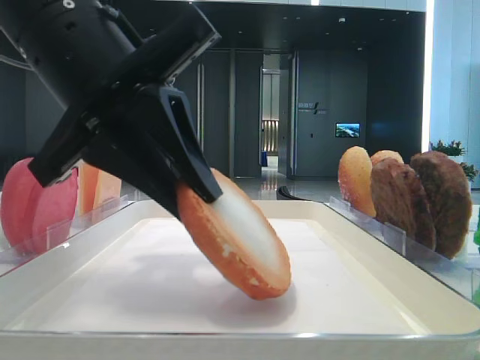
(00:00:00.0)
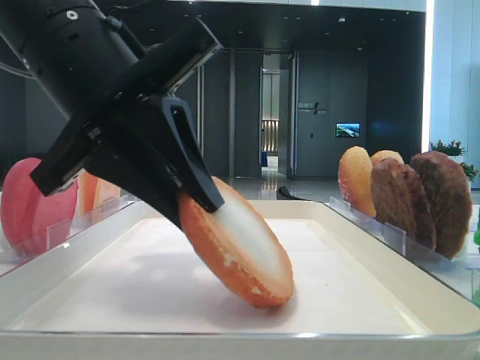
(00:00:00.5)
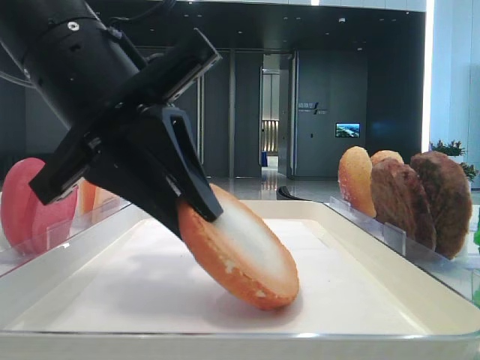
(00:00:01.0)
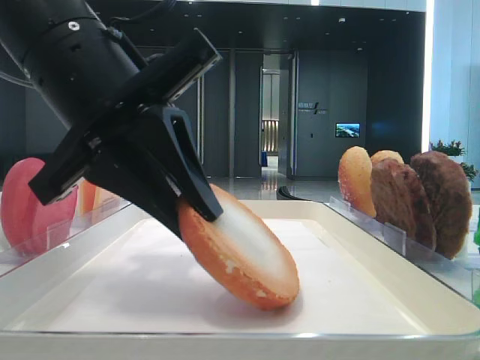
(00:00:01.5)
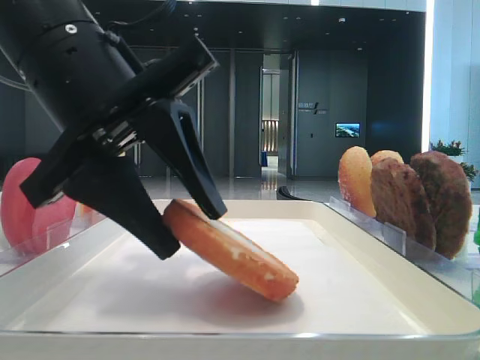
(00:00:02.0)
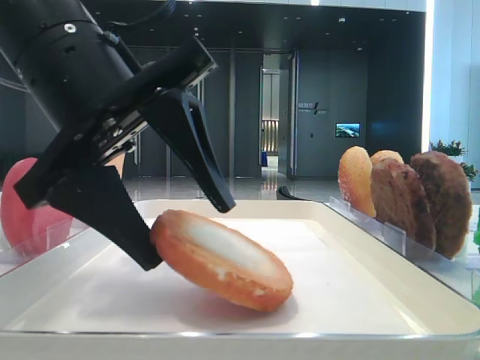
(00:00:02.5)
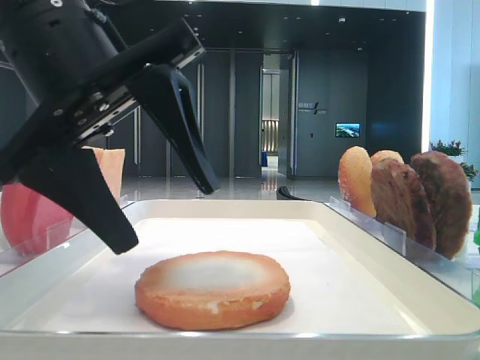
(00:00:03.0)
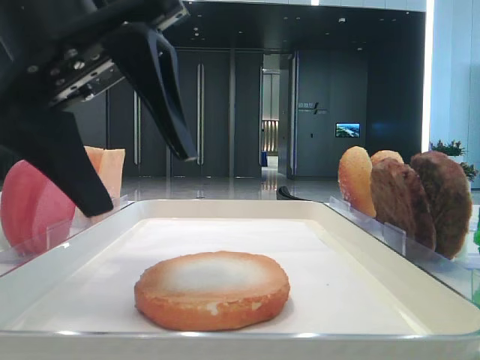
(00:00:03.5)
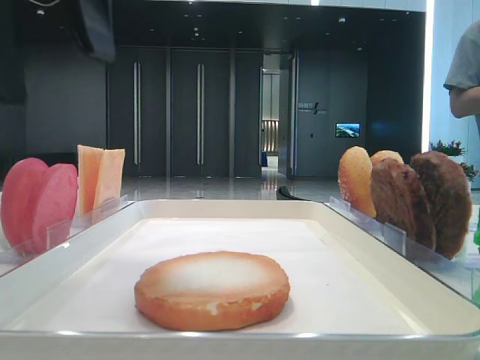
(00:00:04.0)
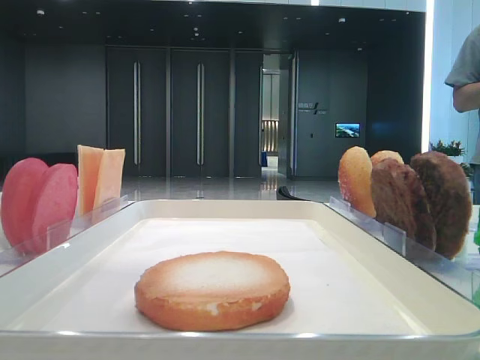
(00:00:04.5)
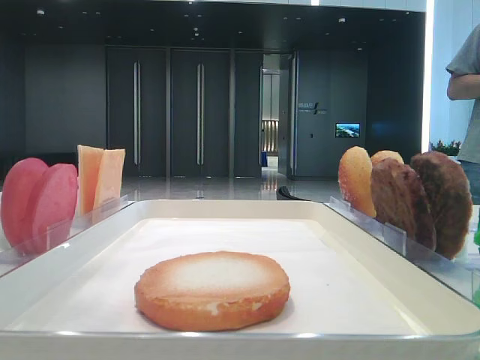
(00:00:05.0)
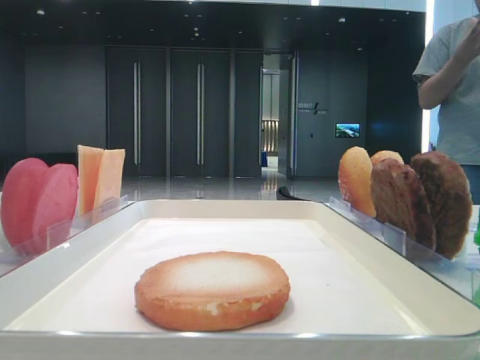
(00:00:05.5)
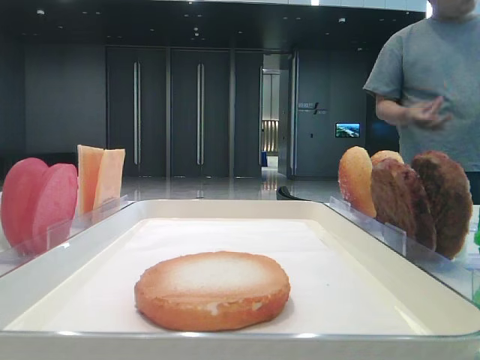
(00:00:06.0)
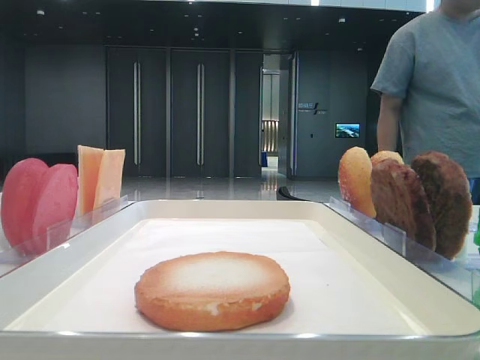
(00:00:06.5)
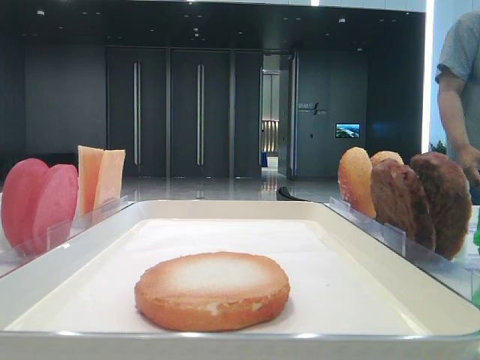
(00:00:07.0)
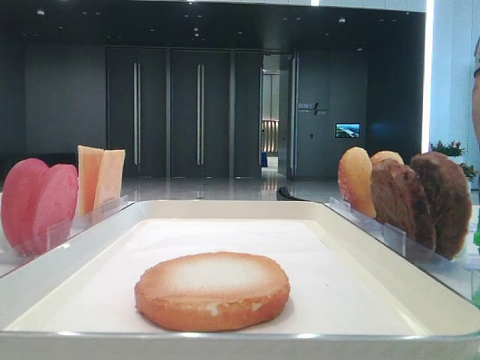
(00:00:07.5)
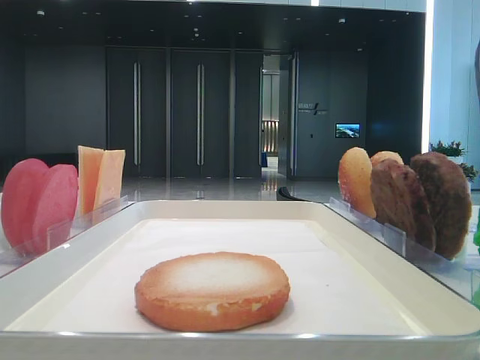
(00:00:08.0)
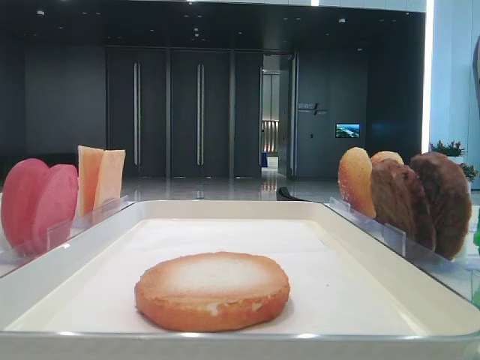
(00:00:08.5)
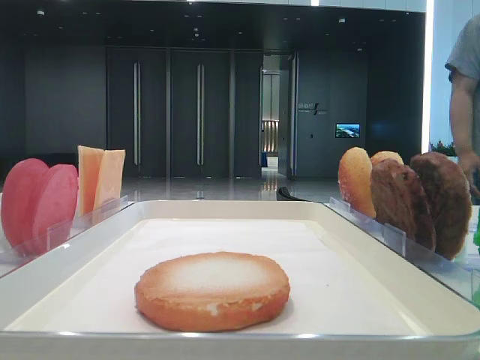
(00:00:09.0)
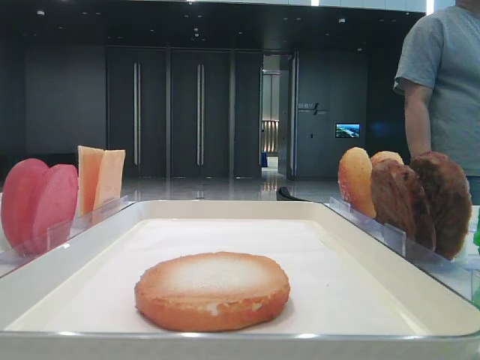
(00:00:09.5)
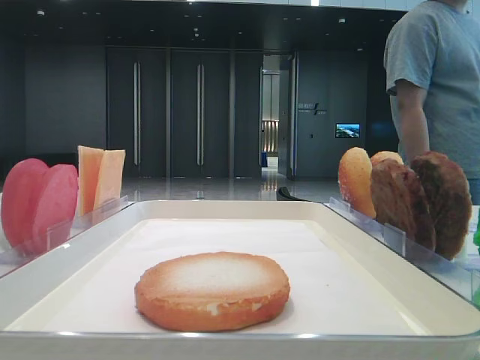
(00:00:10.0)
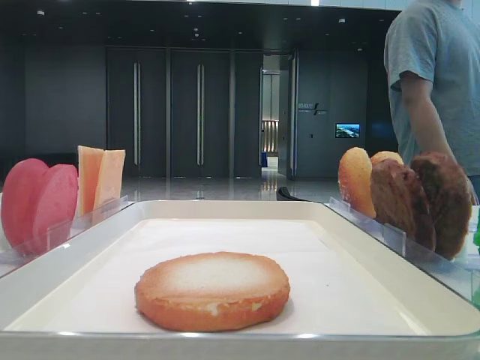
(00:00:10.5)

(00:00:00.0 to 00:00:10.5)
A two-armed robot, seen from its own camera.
Step, 00:00:00.0 - 00:00:02.5: Place the bread on the tray with the left hand.
00:00:00.0 - 00:00:02.0: The left gripper opens.
00:00:02.0 - 00:00:04.0: The left gripper is displaced upward by roughly 10 cm, and opens its fingers.
00:00:04.0 - 00:00:06.5: The left gripper goes roughly 25 cm to the left, upward and backward.

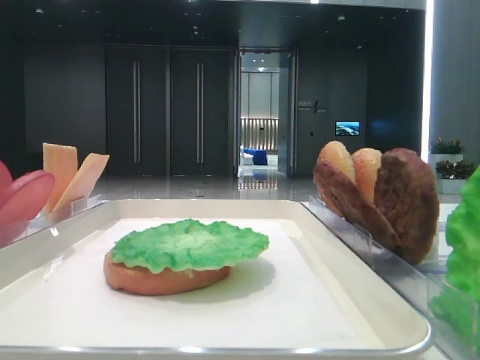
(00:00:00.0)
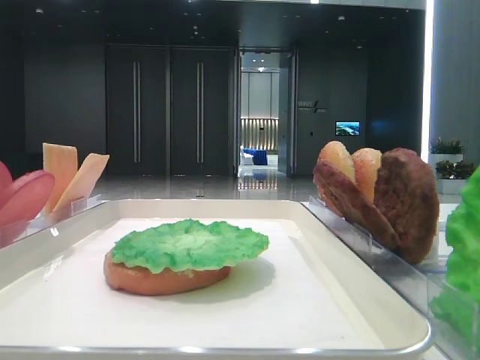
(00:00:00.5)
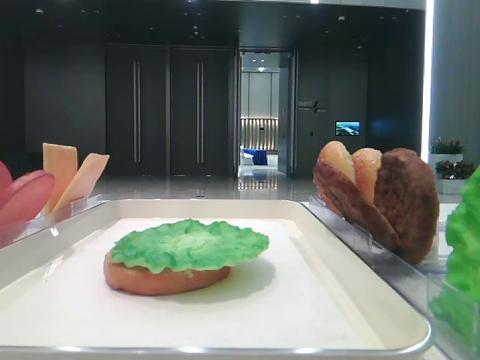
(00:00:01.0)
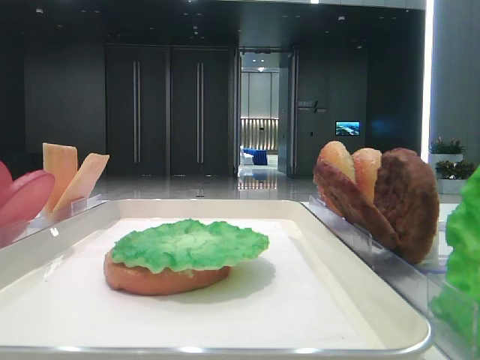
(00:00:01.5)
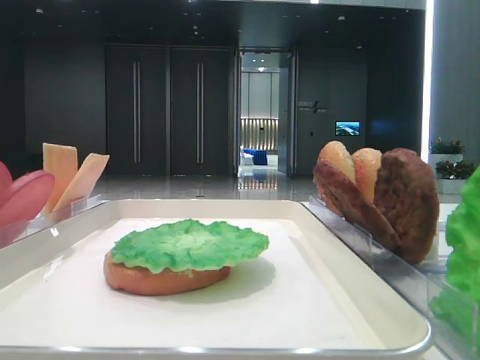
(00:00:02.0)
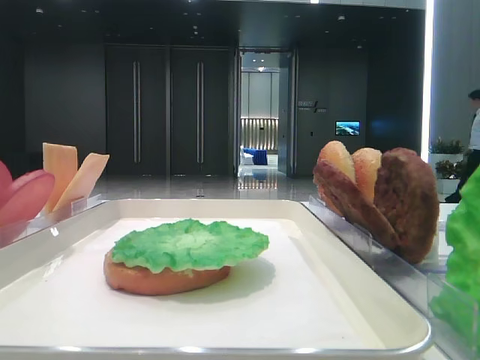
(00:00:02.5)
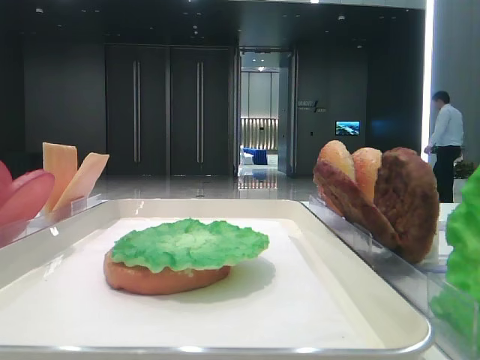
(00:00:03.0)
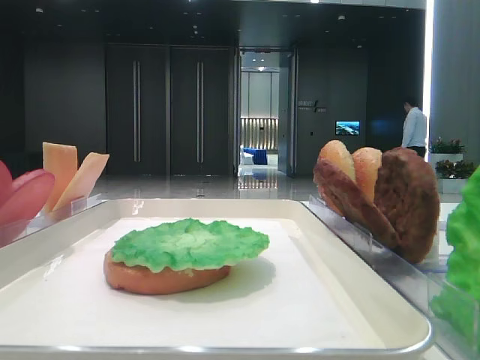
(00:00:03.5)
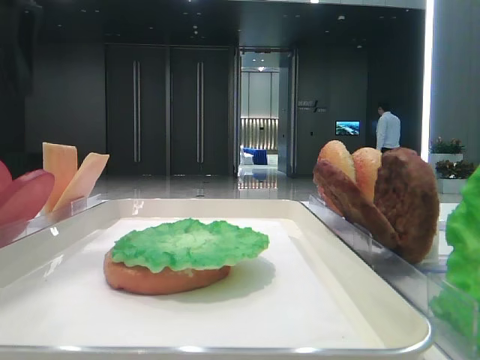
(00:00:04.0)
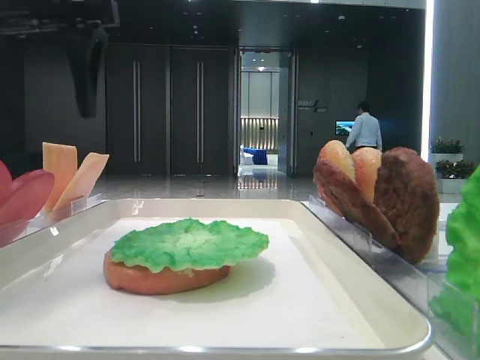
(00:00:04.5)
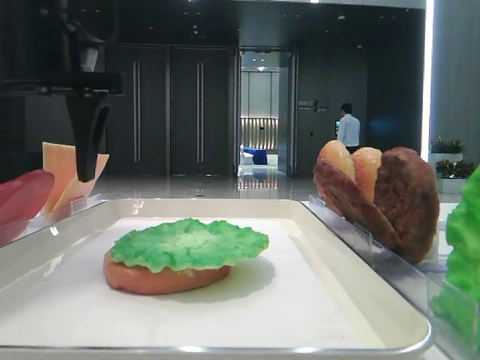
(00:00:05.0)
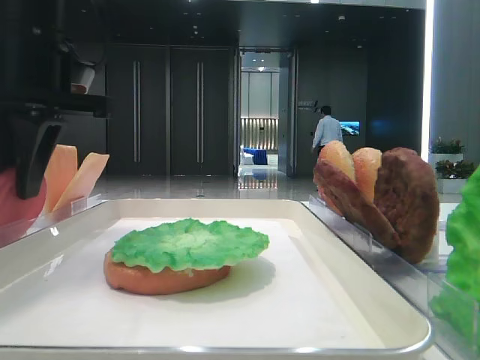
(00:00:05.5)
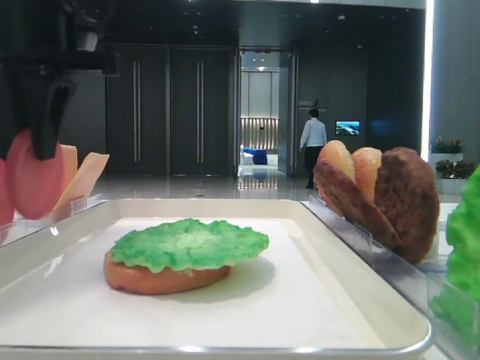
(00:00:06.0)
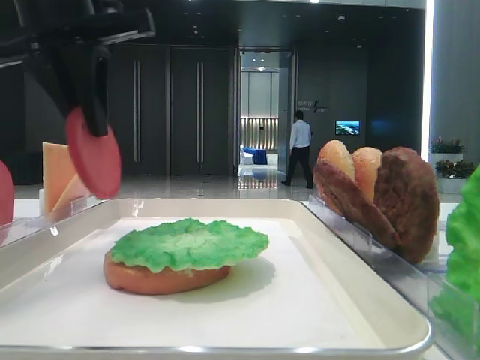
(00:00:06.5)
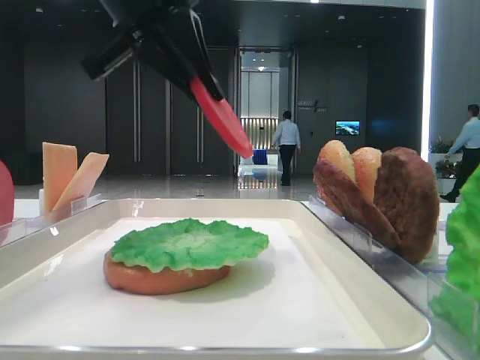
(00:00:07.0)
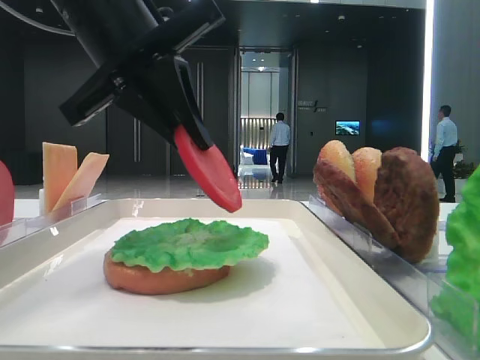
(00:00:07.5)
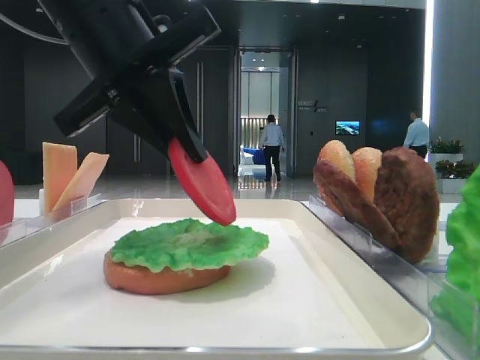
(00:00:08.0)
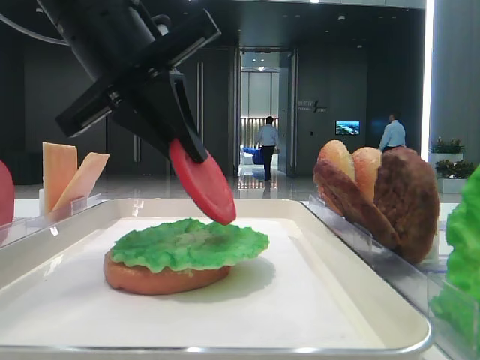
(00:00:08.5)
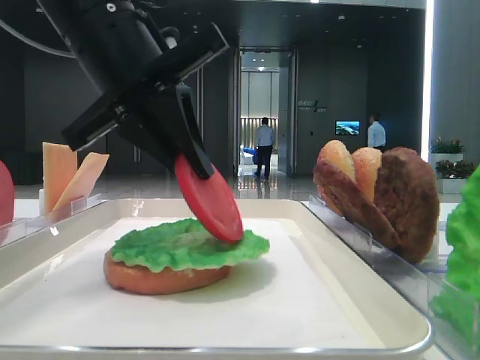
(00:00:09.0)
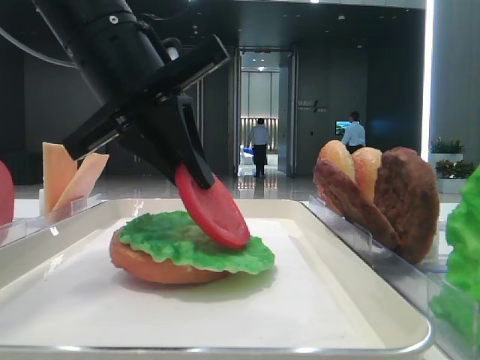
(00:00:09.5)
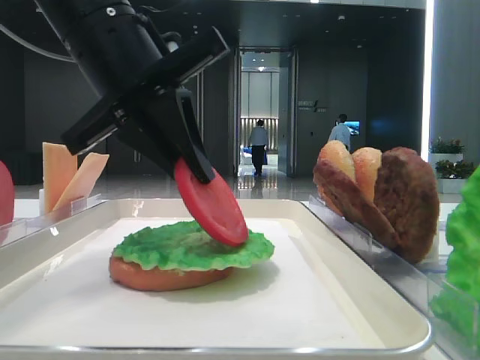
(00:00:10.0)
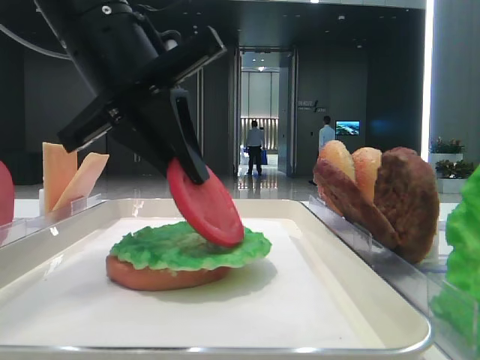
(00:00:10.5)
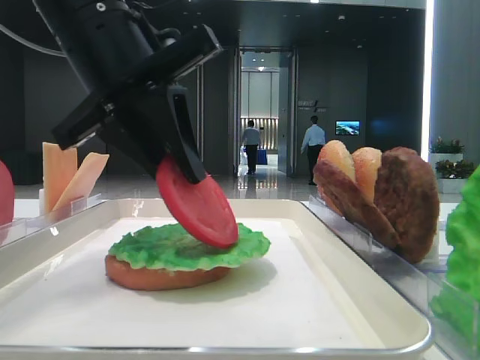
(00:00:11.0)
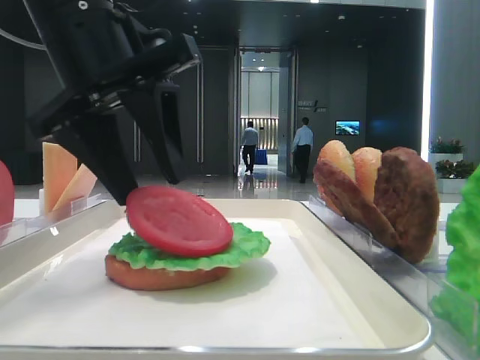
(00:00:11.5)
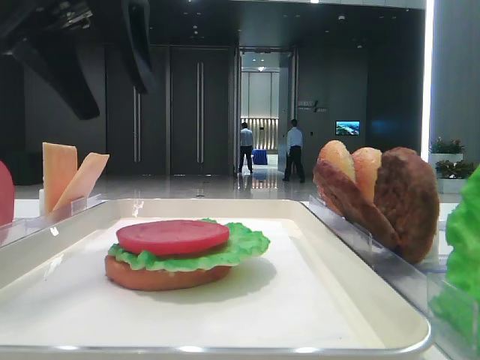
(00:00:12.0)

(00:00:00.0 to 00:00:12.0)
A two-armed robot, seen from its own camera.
Step, 00:00:00.0 - 00:00:05.5: Pick up the tomato slice with the left hand.
Step, 00:00:06.0 - 00:00:11.5: Place the tomato slice on the lettuce leaf with the left hand.
00:00:02.0 - 00:00:04.0: The left gripper shifts some 30 cm forward.
00:00:04.0 - 00:00:06.0: The left gripper is displaced to the right by approximately 5 cm, and closes its fingers.
00:00:06.0 - 00:00:08.0: The left gripper heads to the right, covering approximately 5 cm.
00:00:08.0 - 00:00:10.0: The grippers make only small movements.
00:00:10.0 - 00:00:12.0: The left gripper travels upward by approximately 5 cm, and opens.

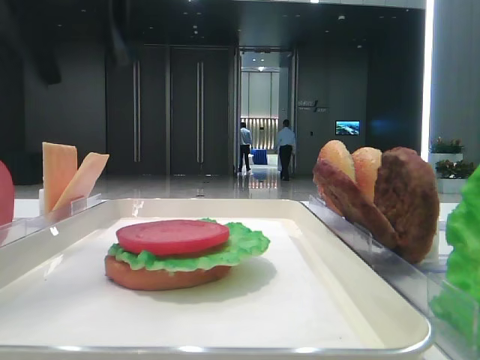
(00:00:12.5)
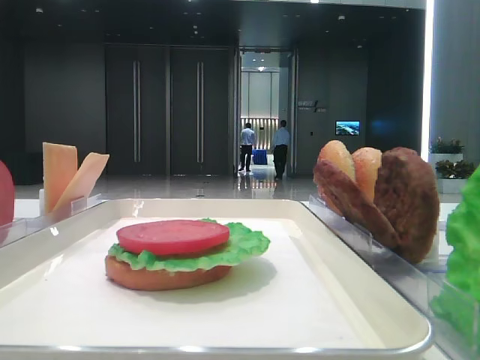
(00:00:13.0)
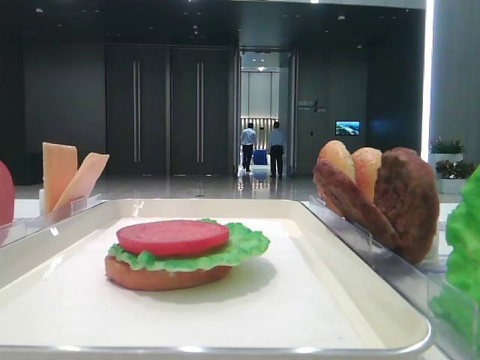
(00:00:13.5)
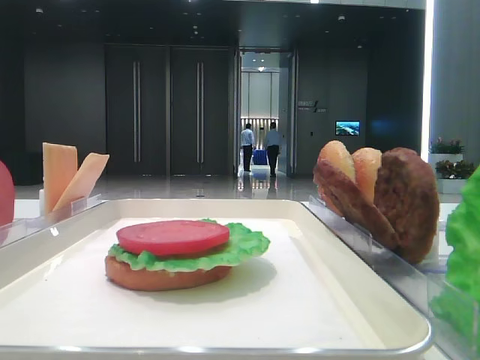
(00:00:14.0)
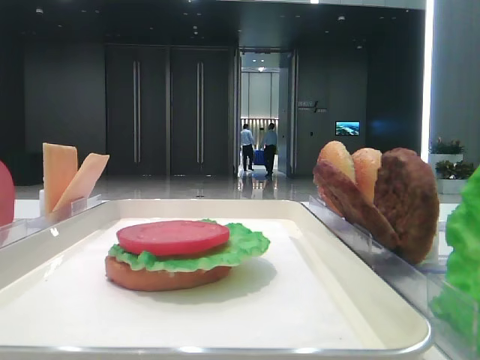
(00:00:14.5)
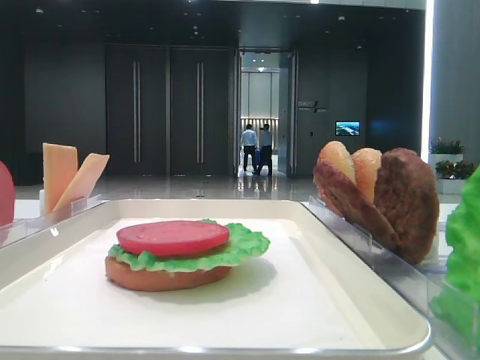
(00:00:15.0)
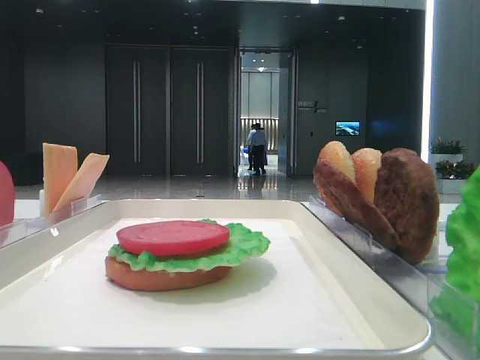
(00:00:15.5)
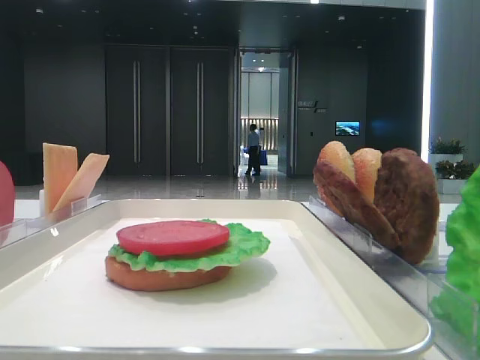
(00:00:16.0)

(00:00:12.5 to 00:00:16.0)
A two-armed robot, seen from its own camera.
00:00:12.5 - 00:00:14.5: The left gripper goes about 30 cm backward and to the left.
00:00:14.5 - 00:00:16.0: The left gripper travels backward by some 5 cm.
